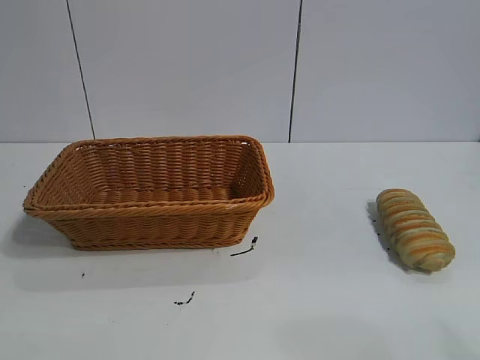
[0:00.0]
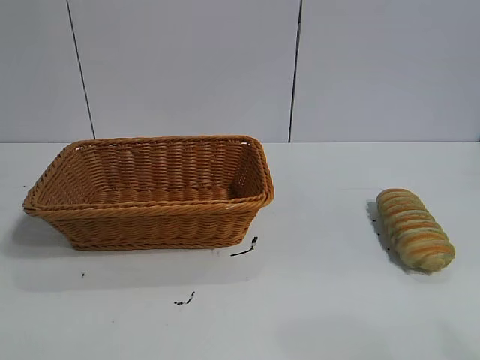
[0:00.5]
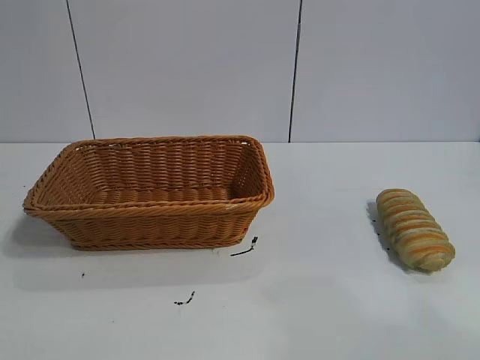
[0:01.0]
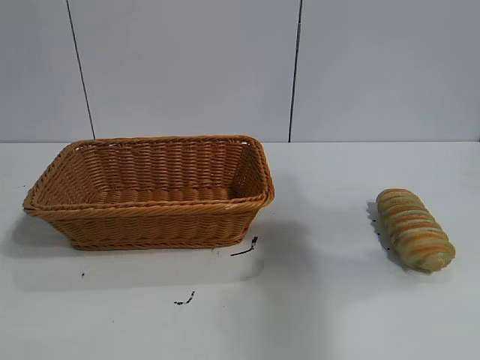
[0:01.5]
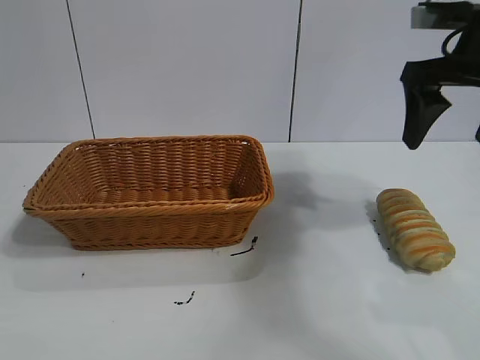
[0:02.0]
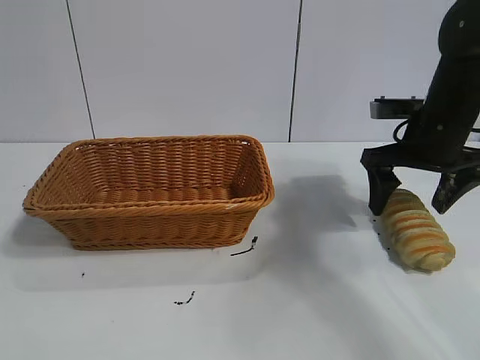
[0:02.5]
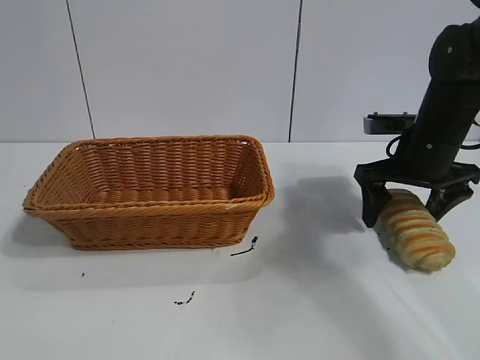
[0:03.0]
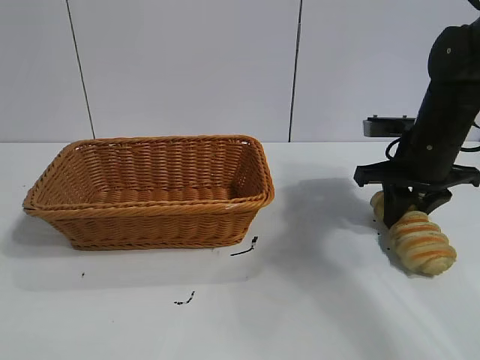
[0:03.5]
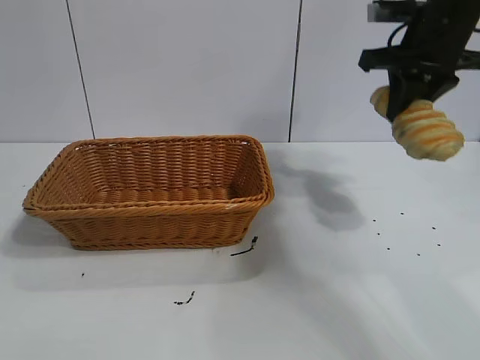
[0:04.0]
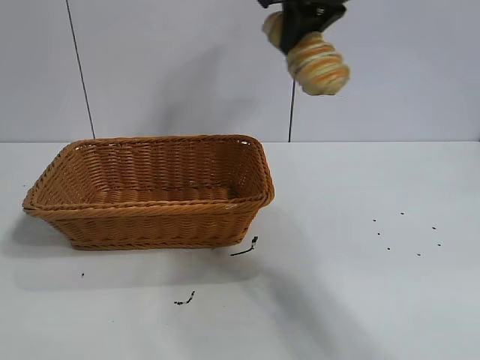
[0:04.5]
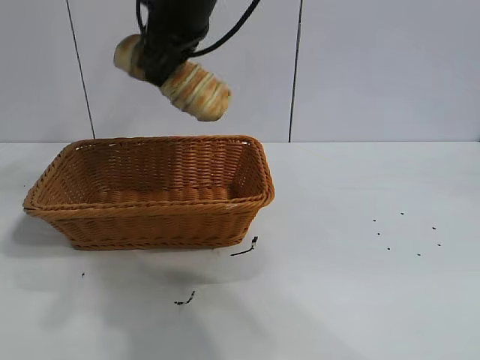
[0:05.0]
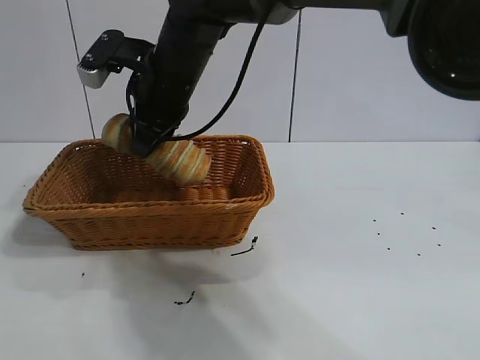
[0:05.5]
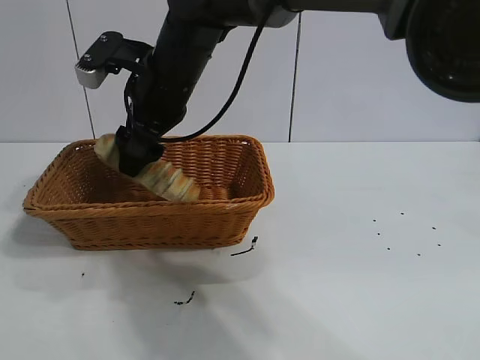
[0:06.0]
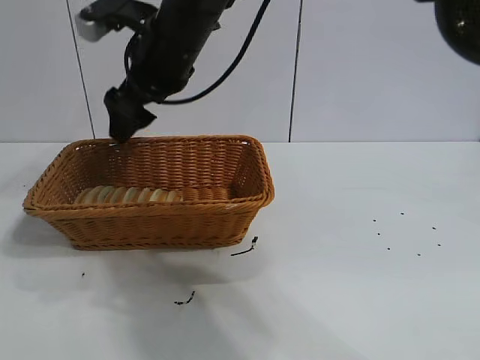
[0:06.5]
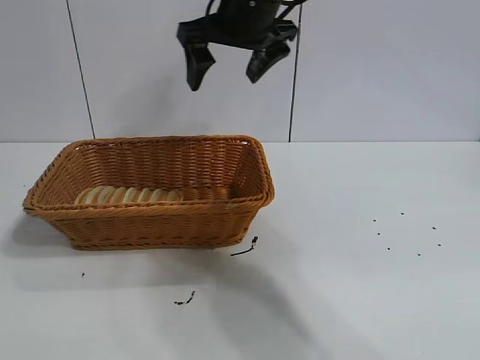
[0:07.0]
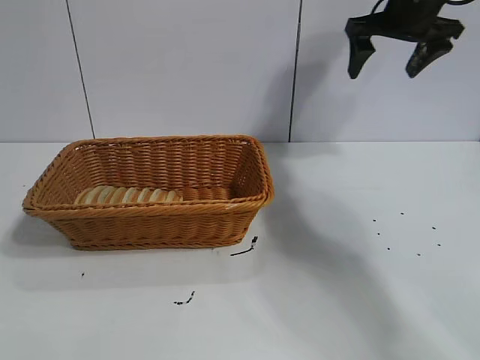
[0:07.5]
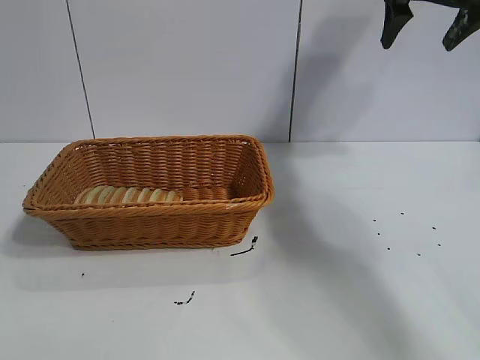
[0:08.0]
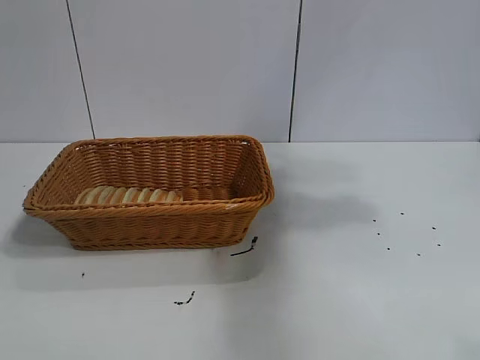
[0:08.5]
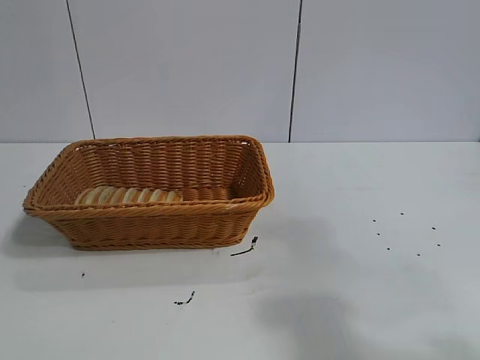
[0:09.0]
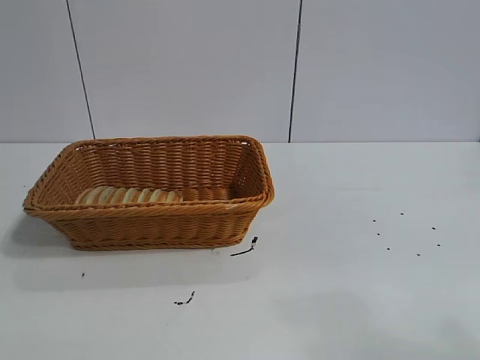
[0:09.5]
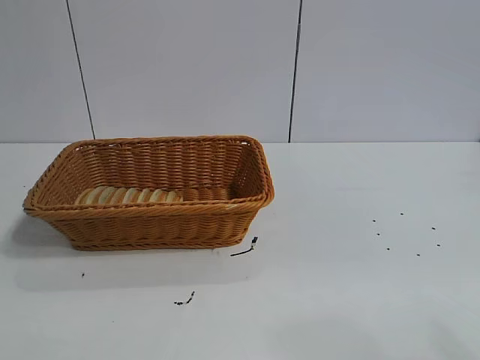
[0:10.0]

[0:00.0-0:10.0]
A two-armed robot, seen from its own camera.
Task of the whole recording: pick up the long bread and put it into the basket.
Step, 0:02.0 to 0:03.5: Grasp the long bread with right gripper.
Step, 0:04.0 to 0:06.0: Place the long bread in the basket with right gripper.

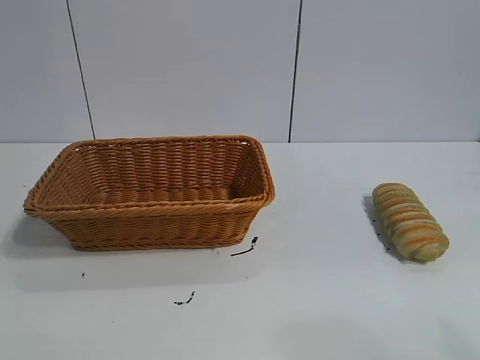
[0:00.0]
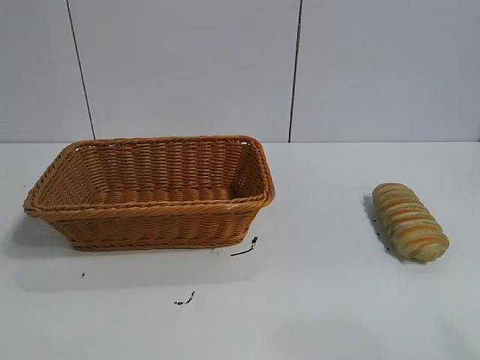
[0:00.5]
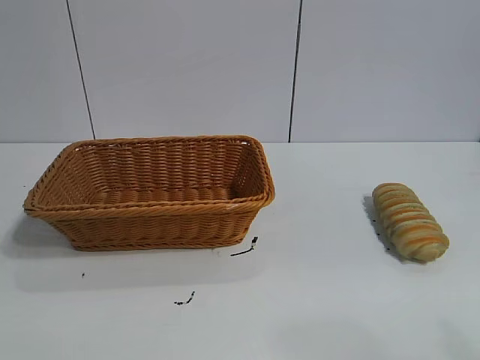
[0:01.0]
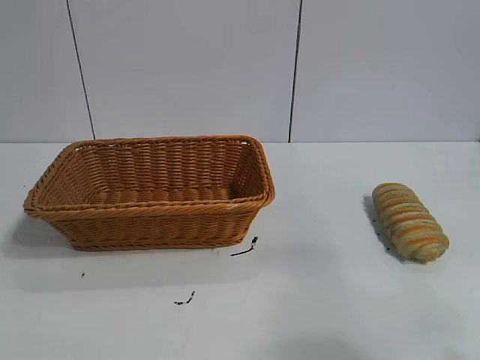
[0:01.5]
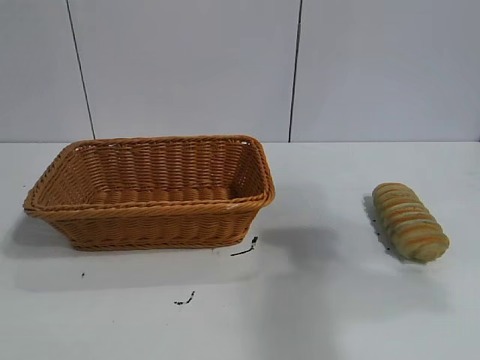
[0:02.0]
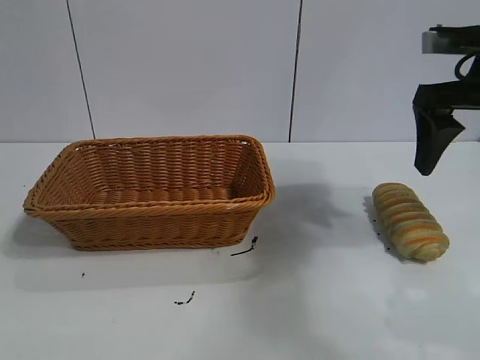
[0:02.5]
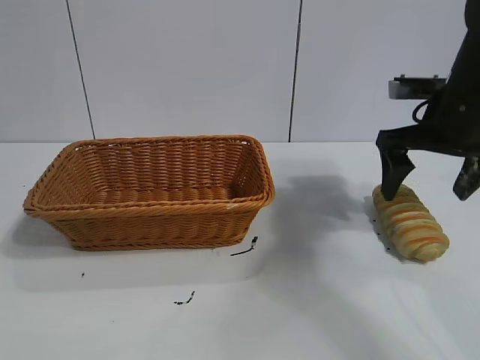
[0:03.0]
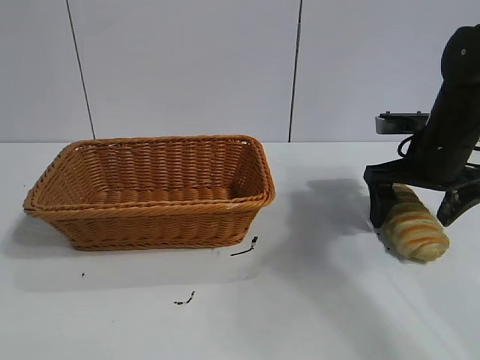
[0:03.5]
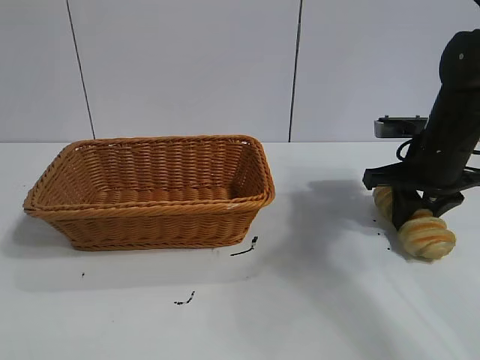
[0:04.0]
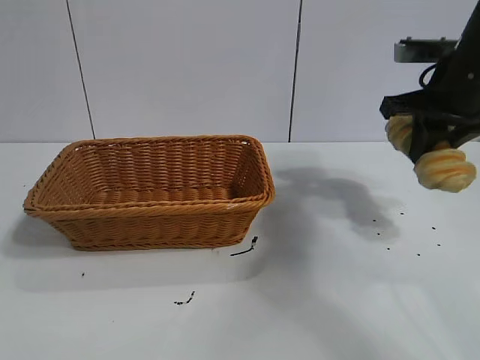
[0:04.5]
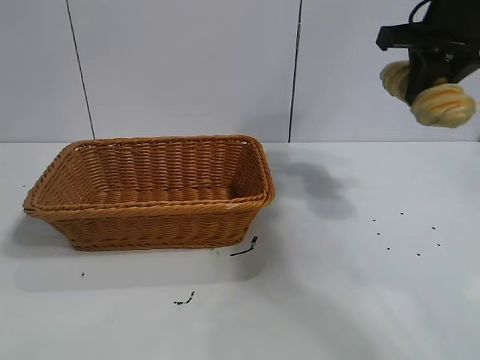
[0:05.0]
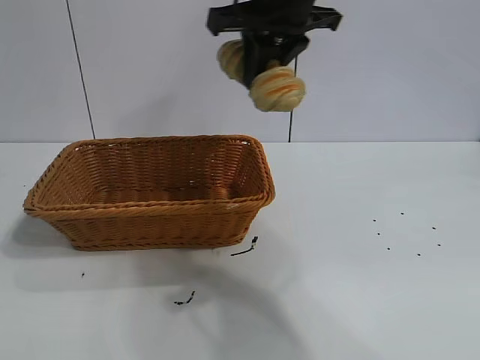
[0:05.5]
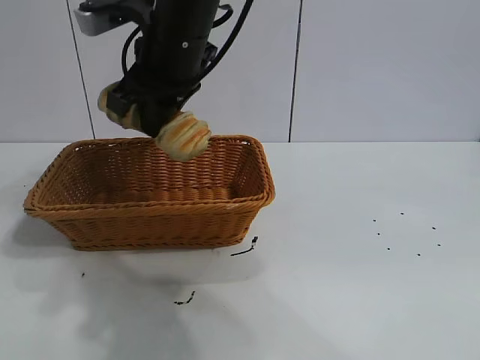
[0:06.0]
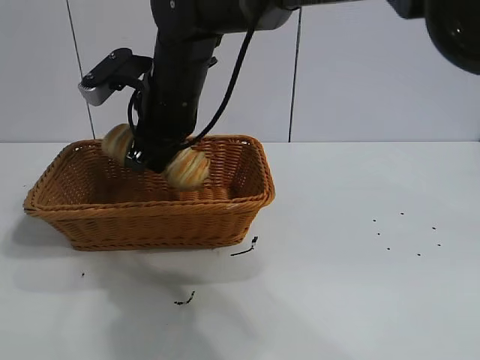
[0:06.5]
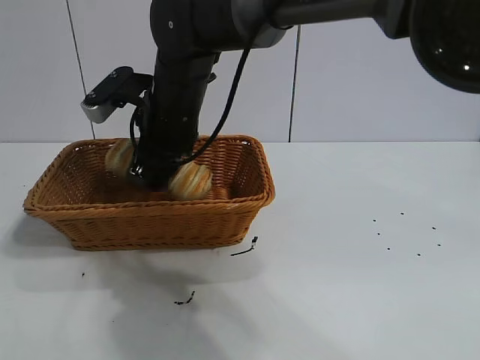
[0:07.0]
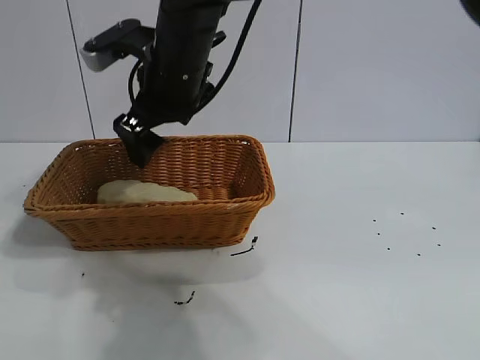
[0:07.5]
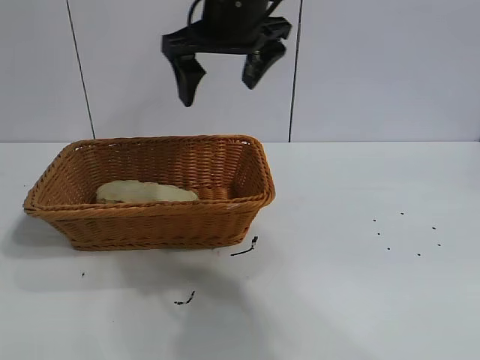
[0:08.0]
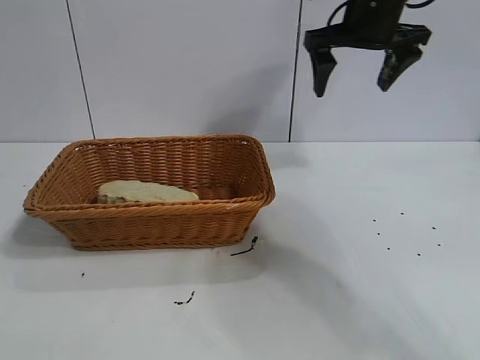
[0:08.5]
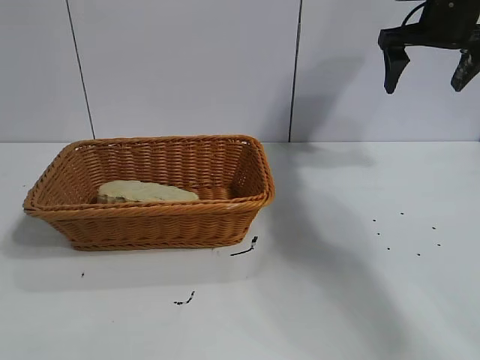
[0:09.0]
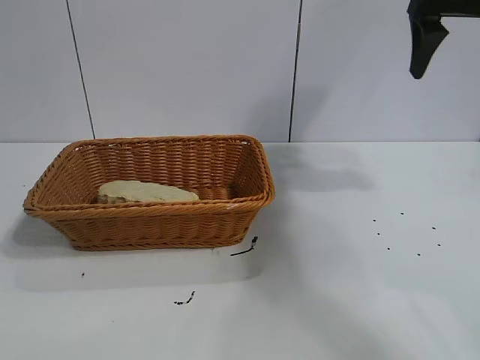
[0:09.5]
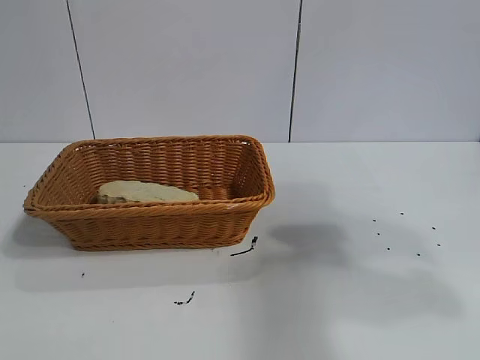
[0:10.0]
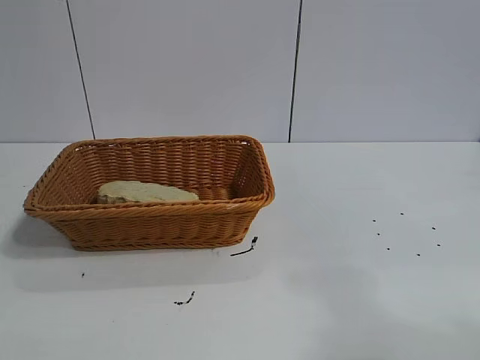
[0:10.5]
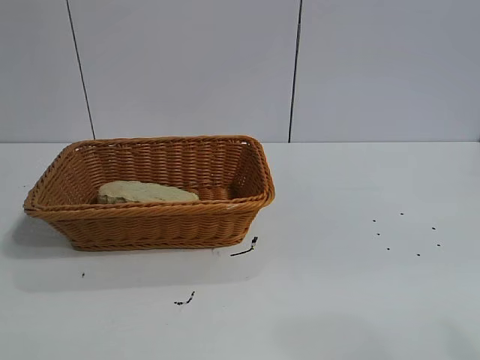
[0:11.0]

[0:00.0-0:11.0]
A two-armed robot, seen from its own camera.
Task of the whole recording: pick up the long bread and put it into the basket.
Step, 0:02.5 to 0:04.0: Grasp the long bread with right gripper.
Step, 0:04.5 to 0:07.5: Place the long bread in the basket with right gripper.
